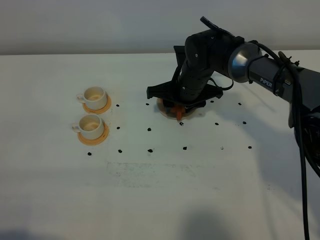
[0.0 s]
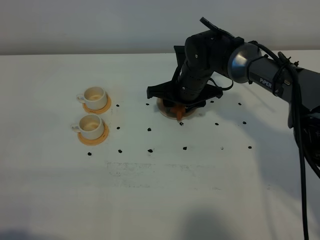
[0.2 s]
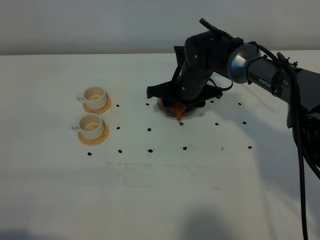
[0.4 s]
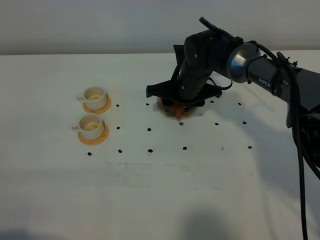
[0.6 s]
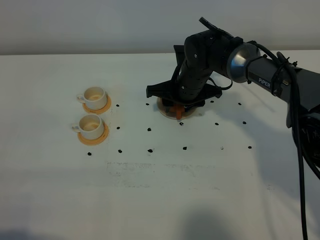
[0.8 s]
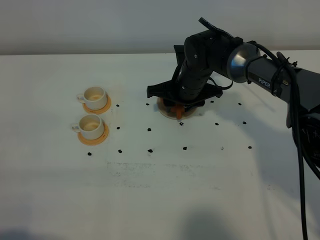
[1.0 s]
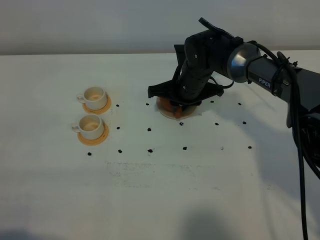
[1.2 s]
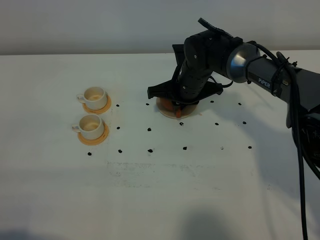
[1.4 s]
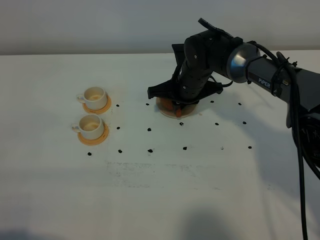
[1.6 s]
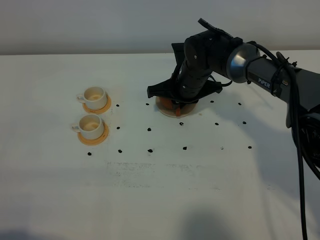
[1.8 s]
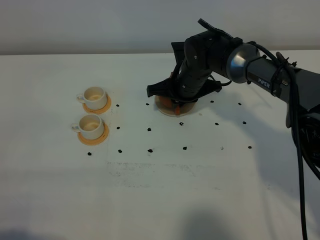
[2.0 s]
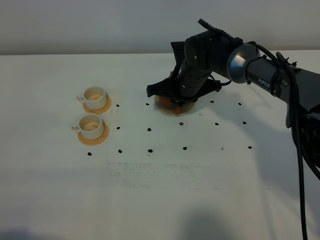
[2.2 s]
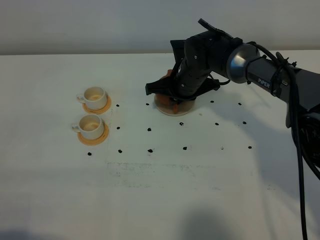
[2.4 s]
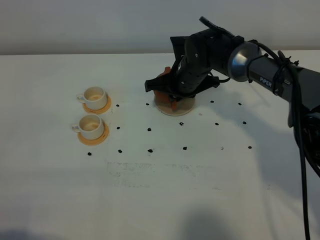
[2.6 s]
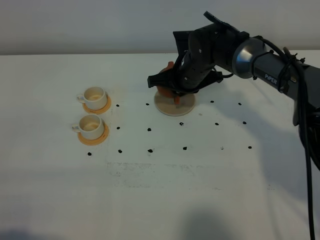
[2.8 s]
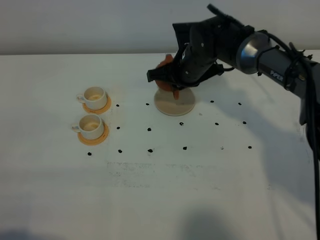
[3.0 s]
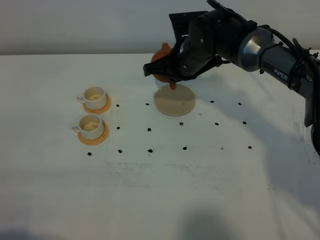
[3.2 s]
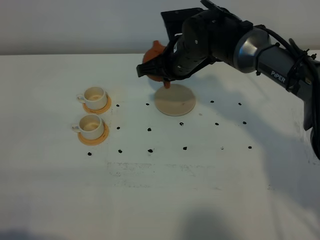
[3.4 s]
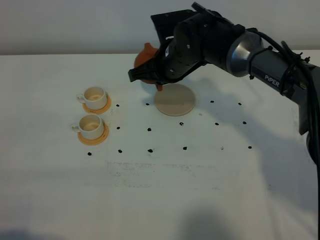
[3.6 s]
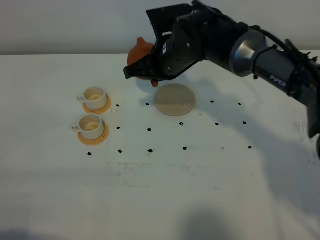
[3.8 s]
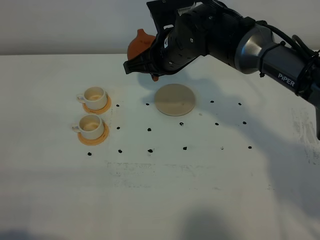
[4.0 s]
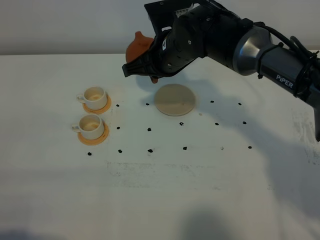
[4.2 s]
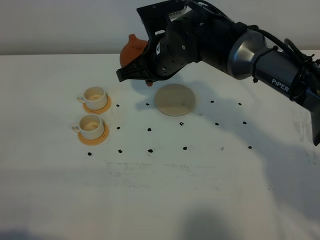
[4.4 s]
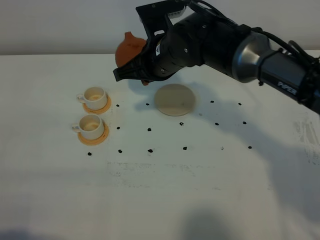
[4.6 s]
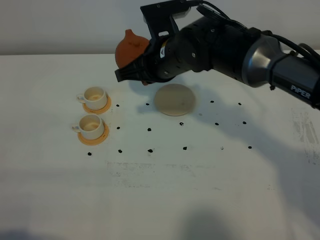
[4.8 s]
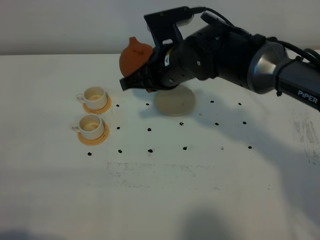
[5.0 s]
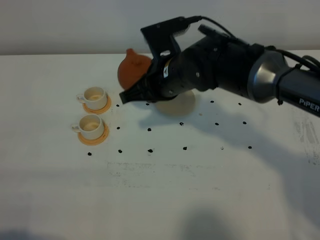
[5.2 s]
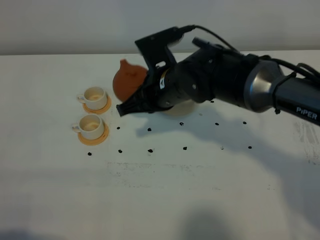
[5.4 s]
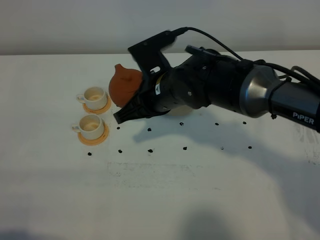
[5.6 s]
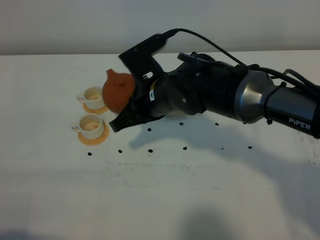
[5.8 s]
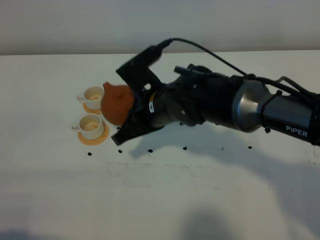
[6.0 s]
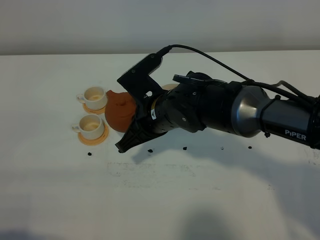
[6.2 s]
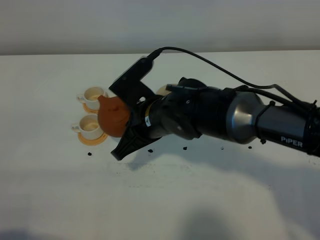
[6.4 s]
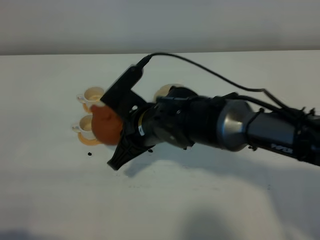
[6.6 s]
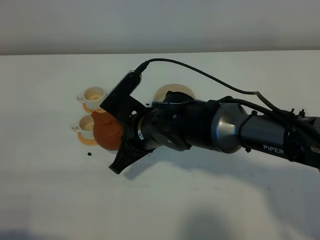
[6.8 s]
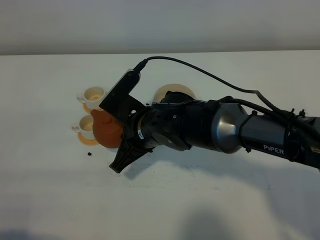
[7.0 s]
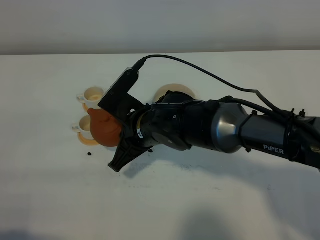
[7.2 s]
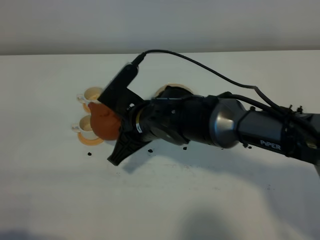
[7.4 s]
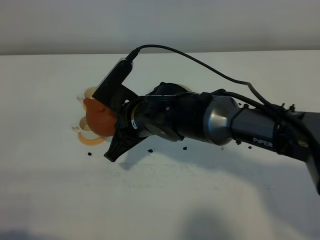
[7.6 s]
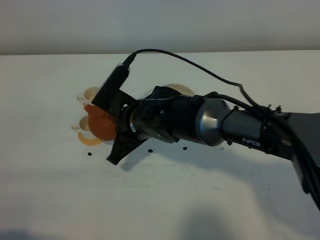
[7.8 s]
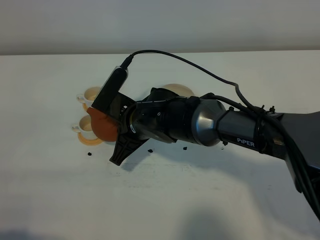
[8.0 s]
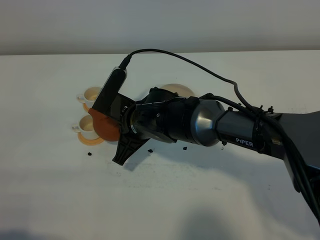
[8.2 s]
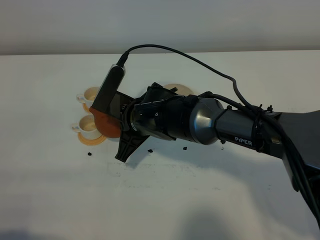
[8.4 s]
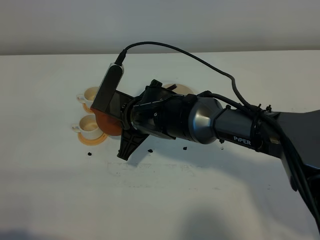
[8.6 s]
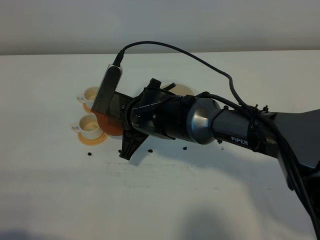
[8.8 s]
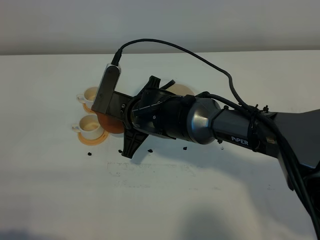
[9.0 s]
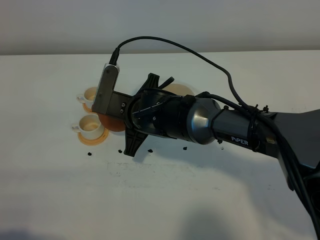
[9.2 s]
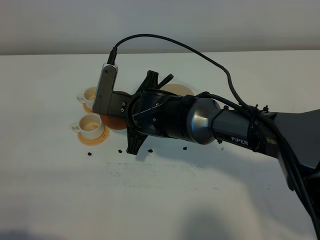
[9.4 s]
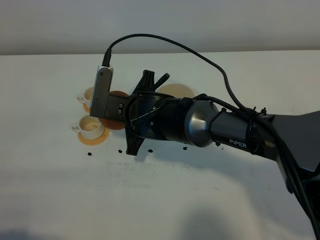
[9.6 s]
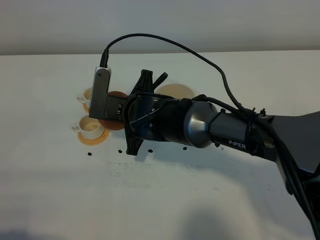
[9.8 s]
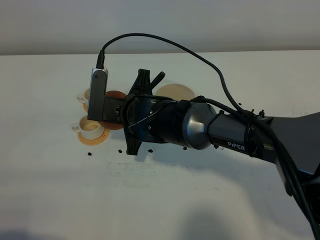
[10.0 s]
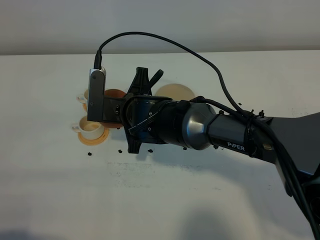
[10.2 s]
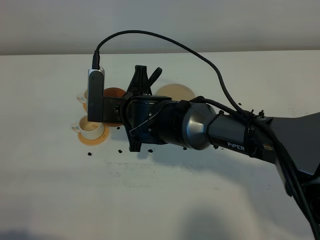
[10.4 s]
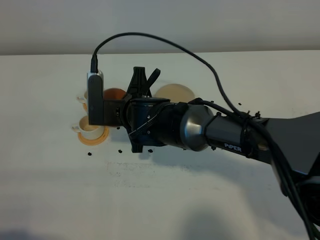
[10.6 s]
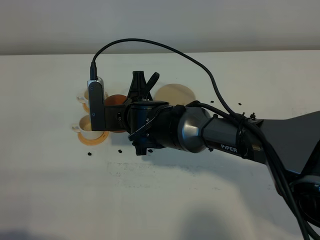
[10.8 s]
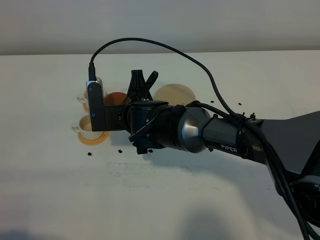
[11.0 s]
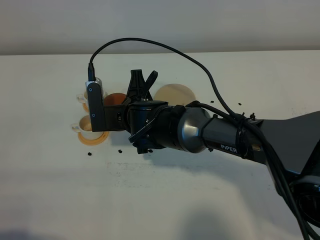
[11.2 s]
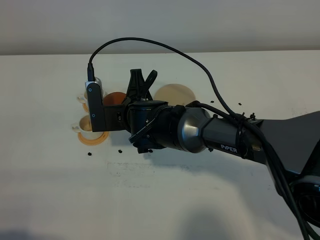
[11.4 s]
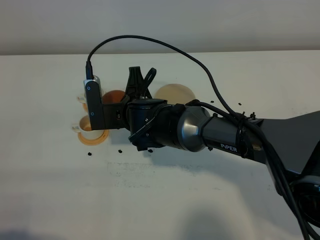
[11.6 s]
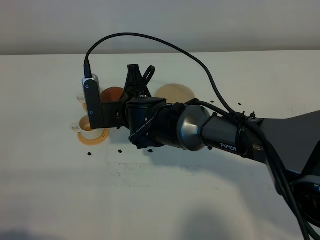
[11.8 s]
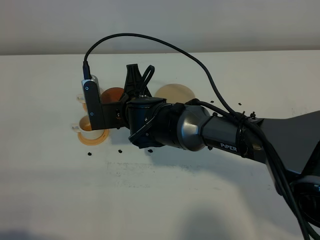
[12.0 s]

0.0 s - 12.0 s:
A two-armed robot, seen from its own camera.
Task of the whole recording: grasp the brown teapot and pour the tea into the two white teacups one by one, put the brown teapot back in its original place.
Step, 0.0 s - 2.8 s: Pick up the teapot with the right gripper.
0.0 s - 1.6 s: The right gripper closes.
1.6 s - 3.0 s: The grippers move only a little.
3.0 s - 4.4 s: The right gripper heads backward and upward, covering roughly 5 cm.
4.4 s - 6.0 s: The right gripper moves backward, roughly 10 cm.
6.0 s - 7.6 s: The grippers make only small movements.
9.0 s - 10.4 s: The grippers move only a little.
10.4 s - 12.0 s: The grippers move only a little.

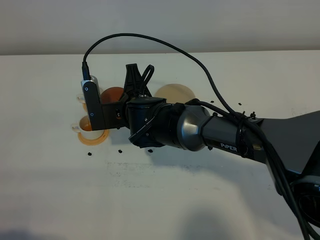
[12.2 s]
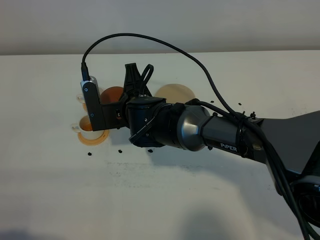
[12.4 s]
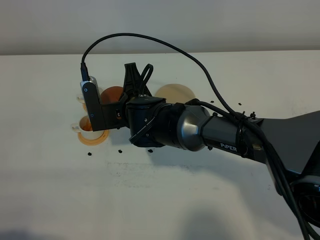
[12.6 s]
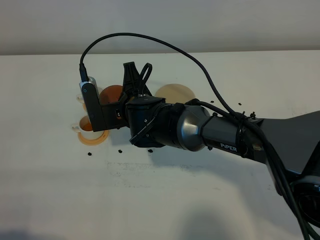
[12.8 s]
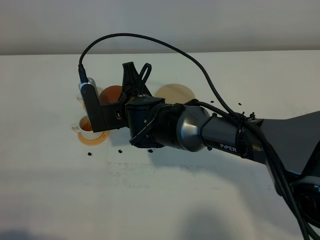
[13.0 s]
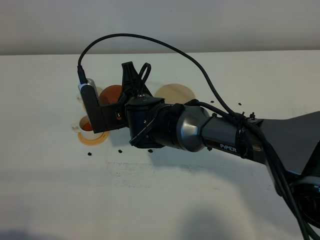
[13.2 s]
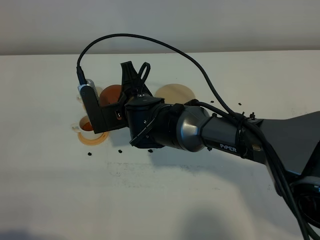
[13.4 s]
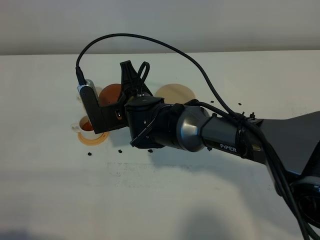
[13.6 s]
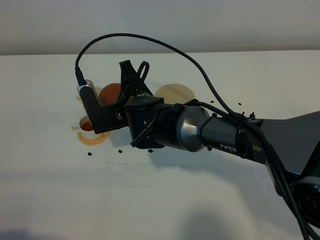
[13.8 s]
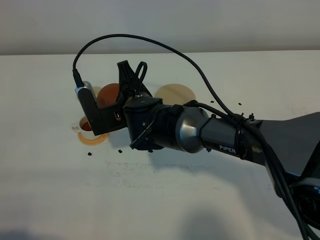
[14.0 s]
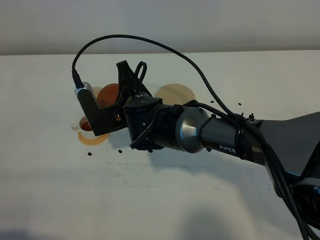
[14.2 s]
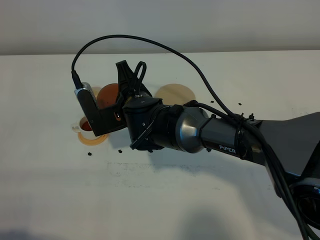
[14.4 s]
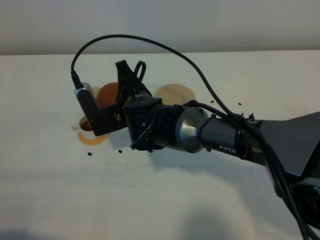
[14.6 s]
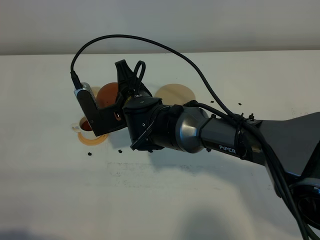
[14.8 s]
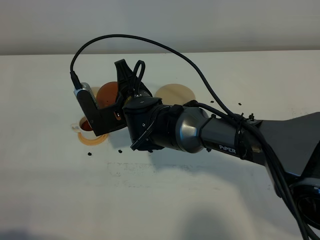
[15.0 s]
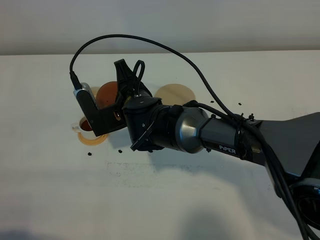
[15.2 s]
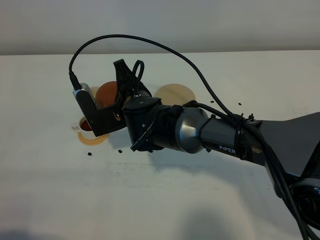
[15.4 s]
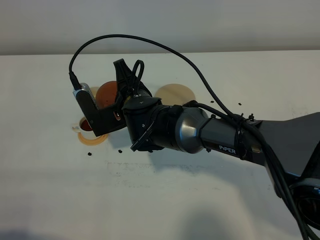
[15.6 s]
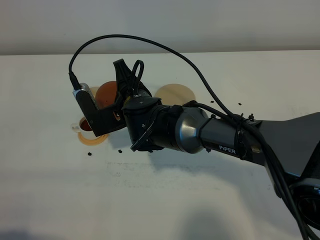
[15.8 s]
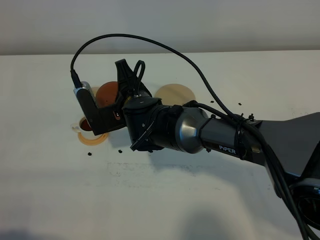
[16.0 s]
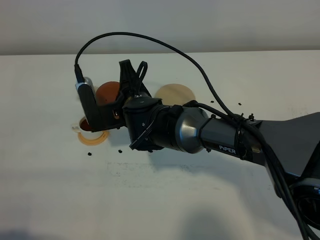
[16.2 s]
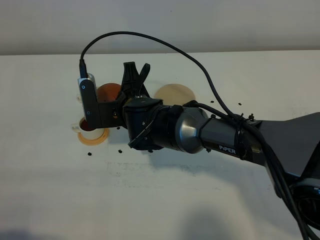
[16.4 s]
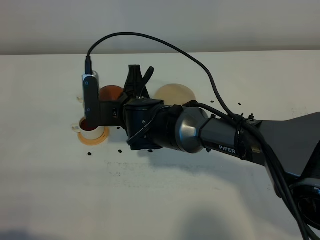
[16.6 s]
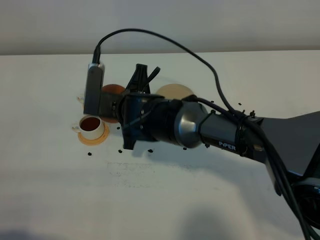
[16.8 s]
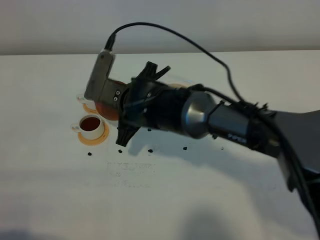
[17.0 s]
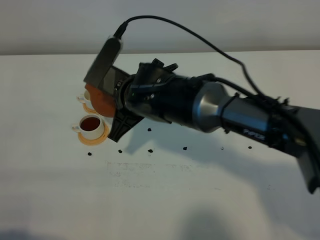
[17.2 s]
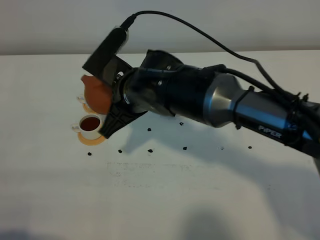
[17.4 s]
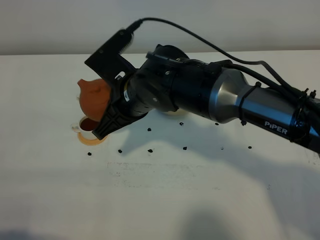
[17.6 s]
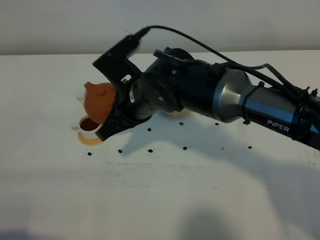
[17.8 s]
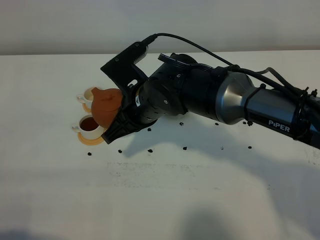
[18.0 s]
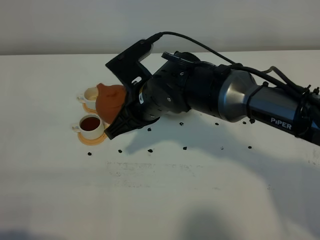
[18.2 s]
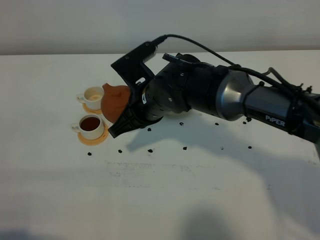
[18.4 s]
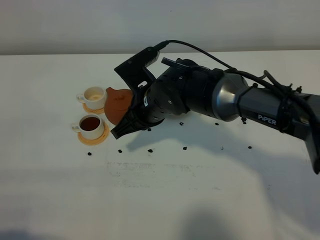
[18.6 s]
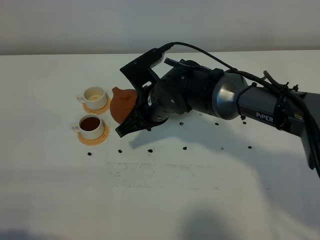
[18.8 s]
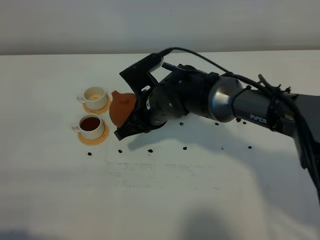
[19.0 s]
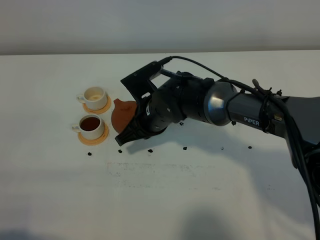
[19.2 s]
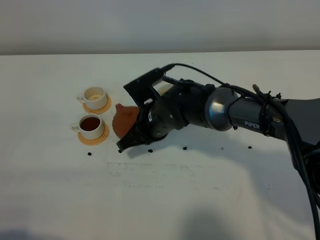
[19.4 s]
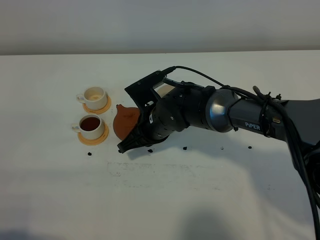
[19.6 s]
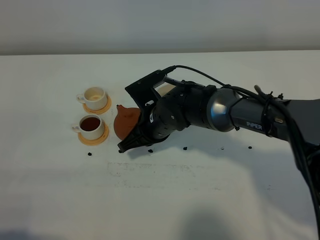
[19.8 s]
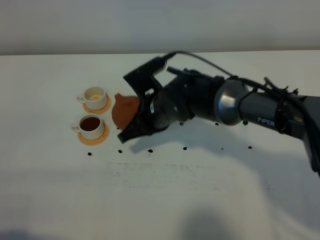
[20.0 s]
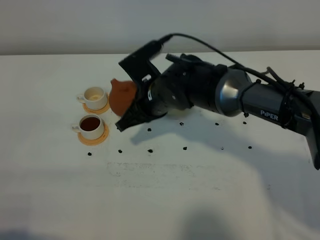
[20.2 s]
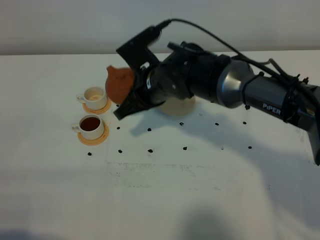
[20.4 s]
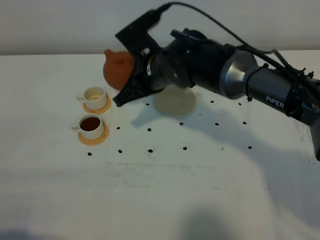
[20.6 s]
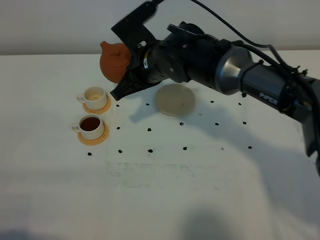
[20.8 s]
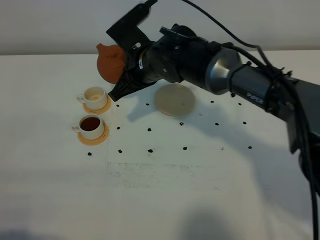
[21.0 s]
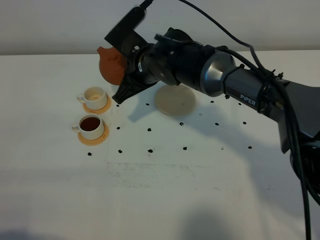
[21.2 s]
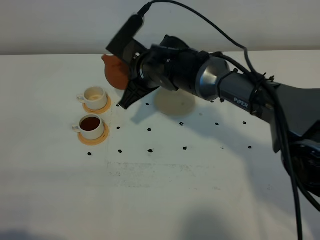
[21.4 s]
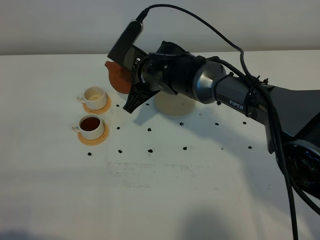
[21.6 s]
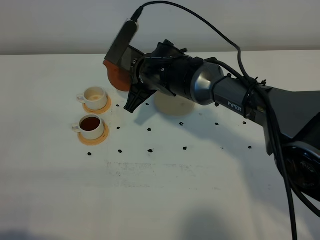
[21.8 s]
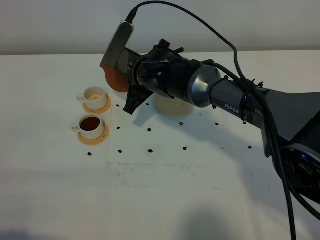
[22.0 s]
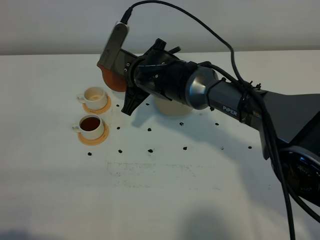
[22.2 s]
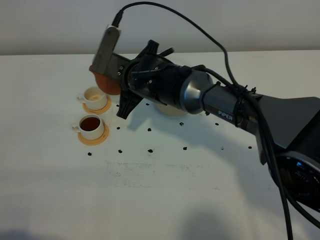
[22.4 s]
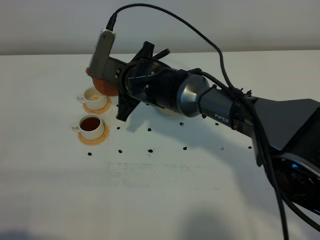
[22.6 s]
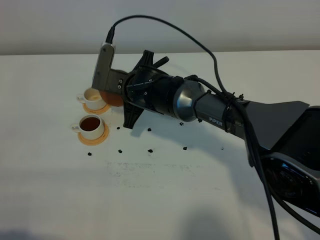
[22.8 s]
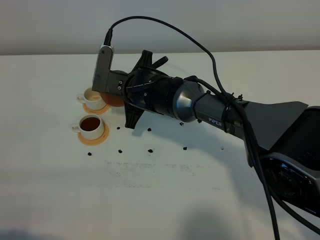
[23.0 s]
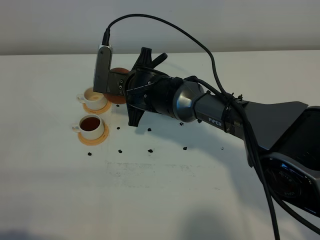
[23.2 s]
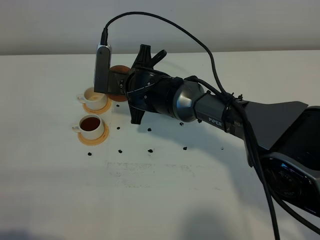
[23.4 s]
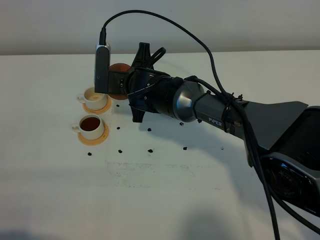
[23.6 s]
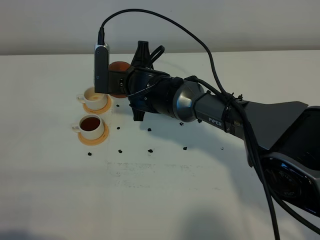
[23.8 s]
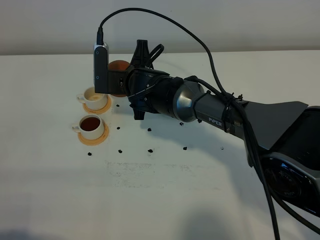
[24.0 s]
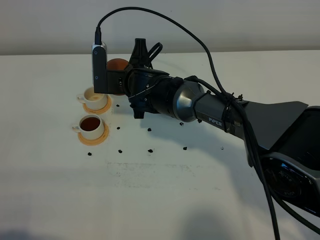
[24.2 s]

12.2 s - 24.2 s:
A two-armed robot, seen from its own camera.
Task of the whole recording: grasp the brown teapot and pour the tea into the two white teacups one by one, put the brown teapot back in its original place.
12.2 s - 13.8 s: There are only small adjustments of the grippers.
13.8 s - 15.2 s: Neither gripper changes place.
16.6 s - 18.2 s: The right gripper shifts about 5 cm upward.
18.2 s - 19.8 s: The right gripper heads downward, covering approximately 10 cm.
19.8 s - 21.2 s: The right gripper is displaced upward and forward by some 10 cm.
